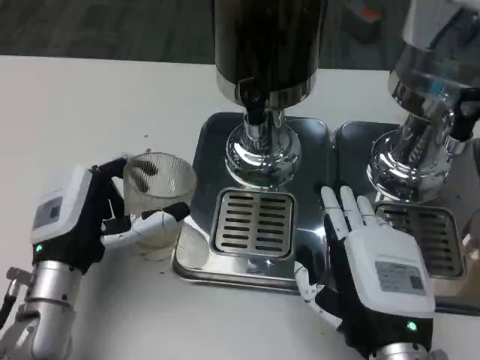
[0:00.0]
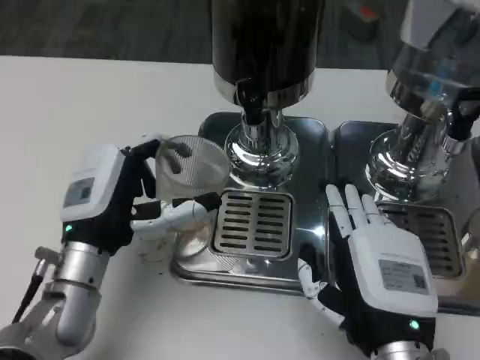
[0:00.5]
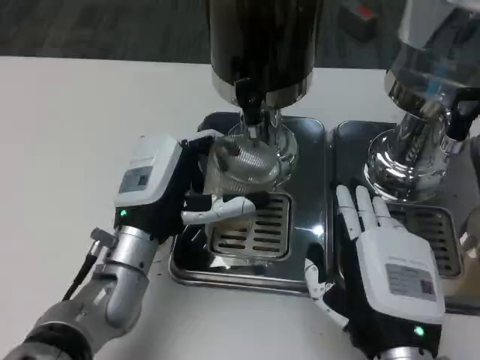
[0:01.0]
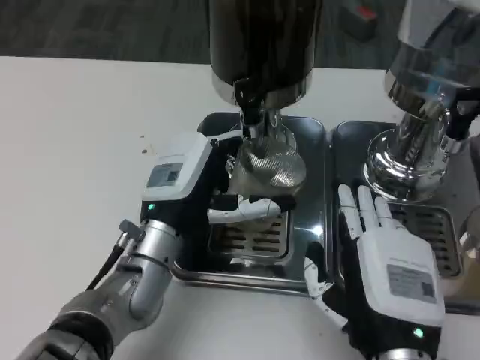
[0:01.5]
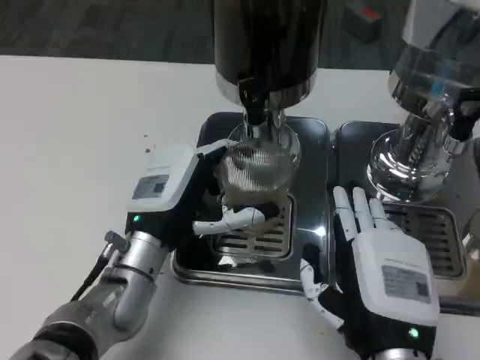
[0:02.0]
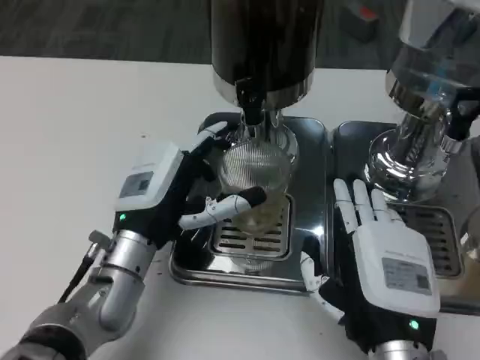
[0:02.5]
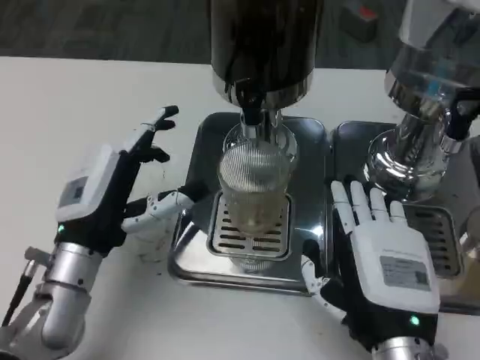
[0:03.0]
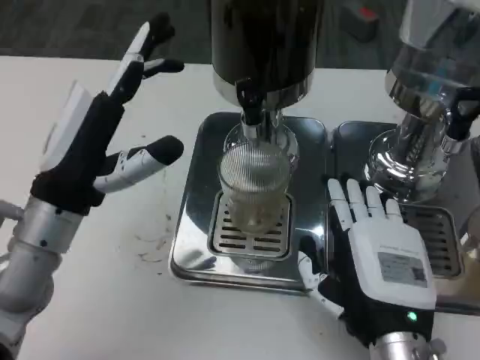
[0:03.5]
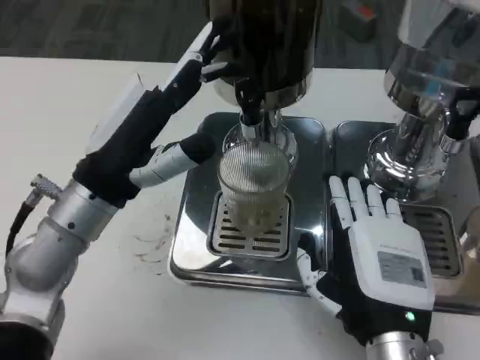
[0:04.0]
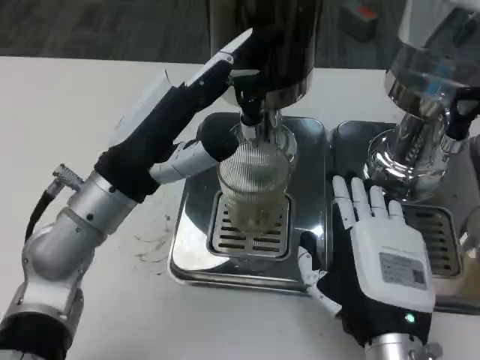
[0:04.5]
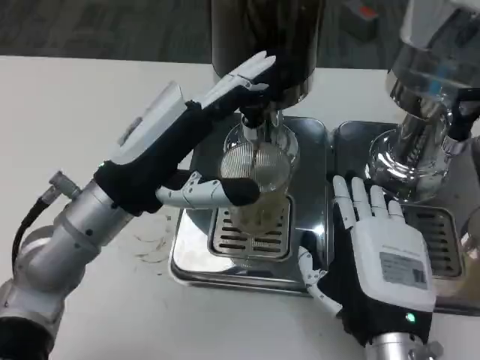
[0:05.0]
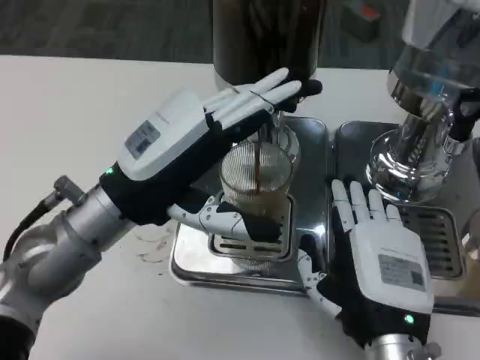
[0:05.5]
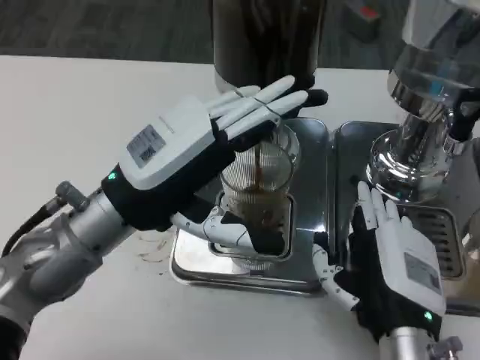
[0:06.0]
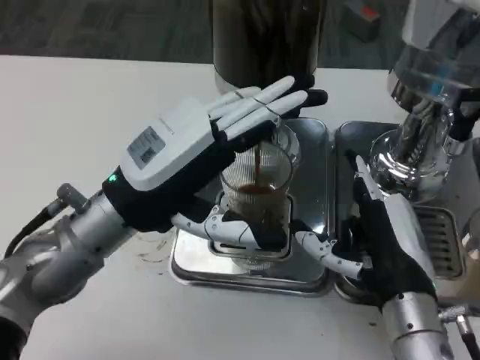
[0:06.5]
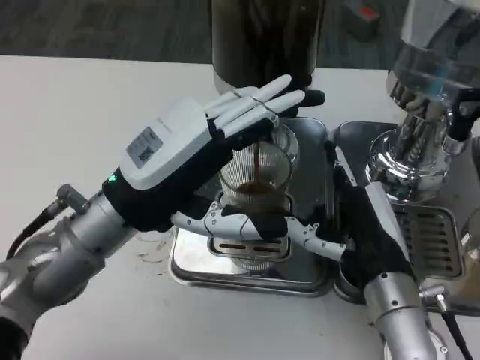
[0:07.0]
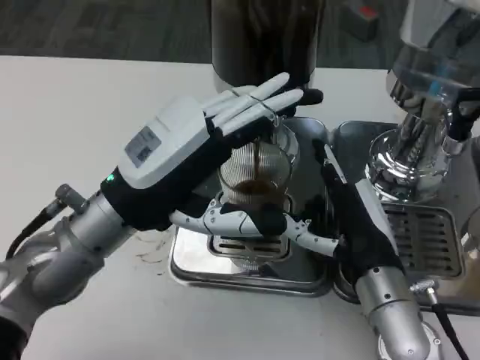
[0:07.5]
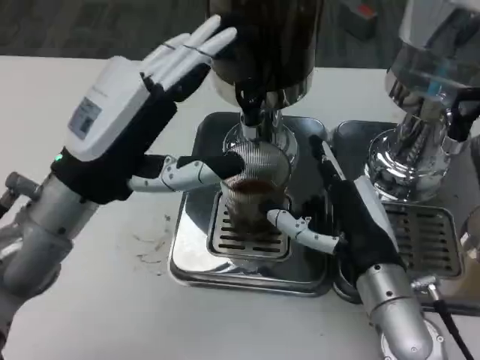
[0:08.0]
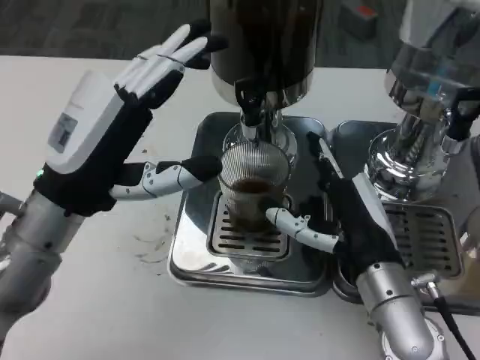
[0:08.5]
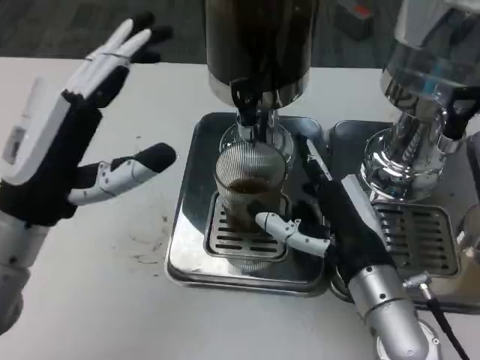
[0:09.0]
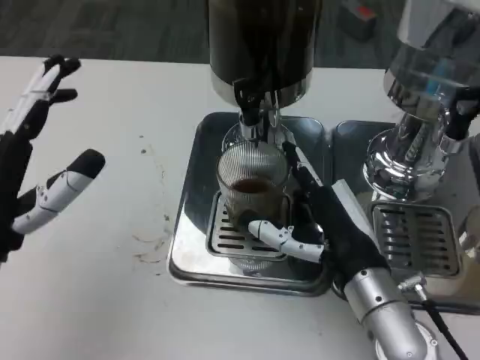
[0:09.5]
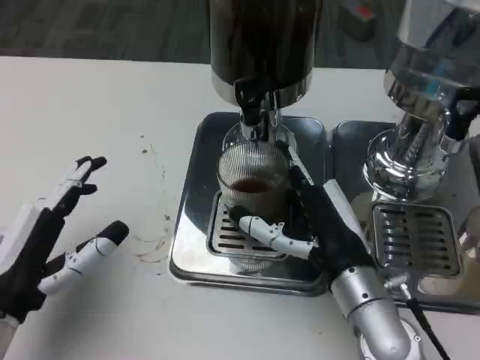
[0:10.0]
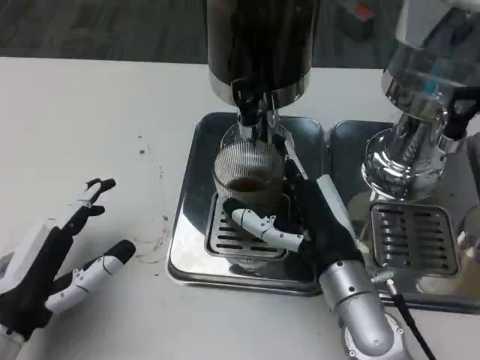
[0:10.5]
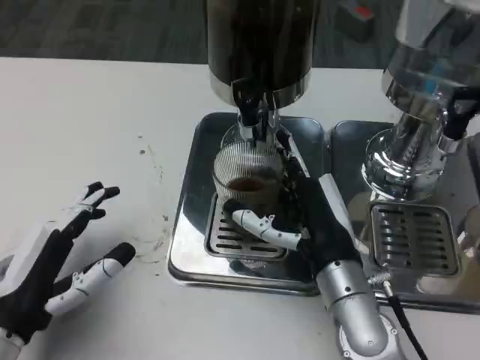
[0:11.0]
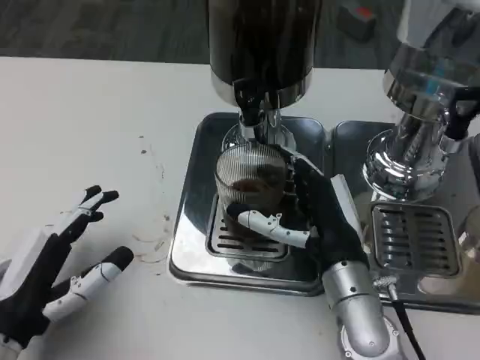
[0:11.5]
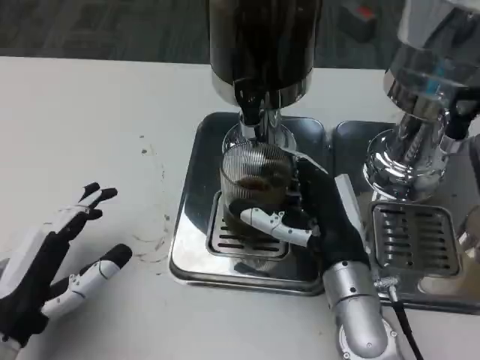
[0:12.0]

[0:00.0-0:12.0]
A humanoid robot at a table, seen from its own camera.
Task of the whole recording: Grasp the cup under the faucet to collect the drink, then remove the cup.
0:00.0 to 0:02.0: The left hand shifts some 5 cm to the right.
0:02.0 to 0:04.0: The left hand heads upward, covering about 10 cm.
0:06.0 to 0:08.0: The right hand is displaced forward by roughly 5 cm.
0:08.0 to 0:10.0: The left hand moves downward, backward and to the left, approximately 15 cm.
0:10.0 to 0:12.0: The hands make only small movements.

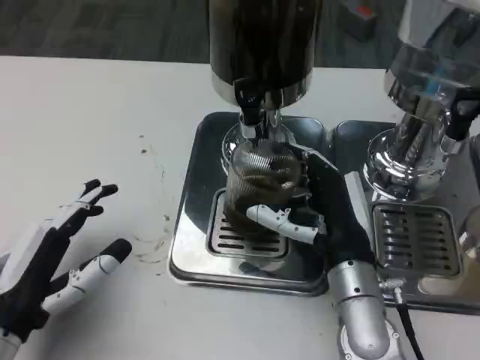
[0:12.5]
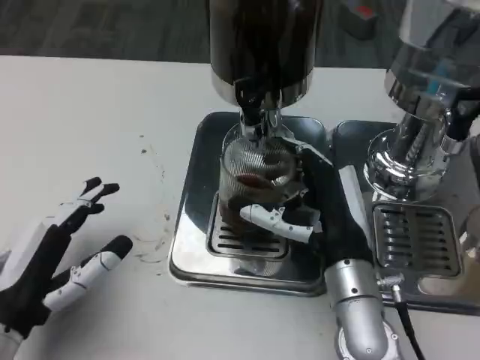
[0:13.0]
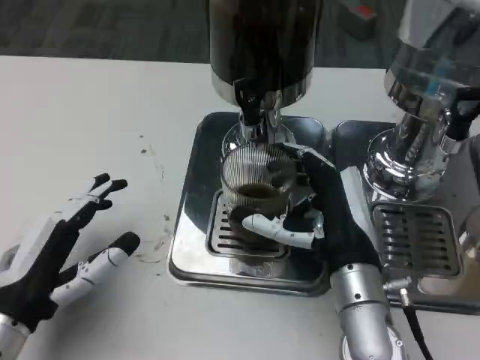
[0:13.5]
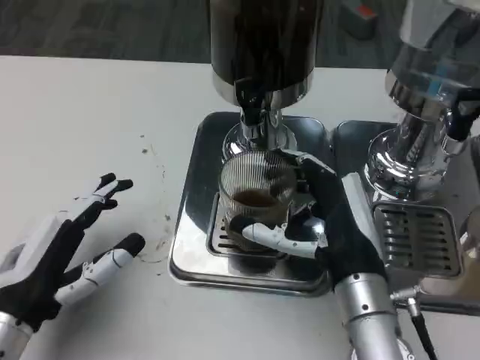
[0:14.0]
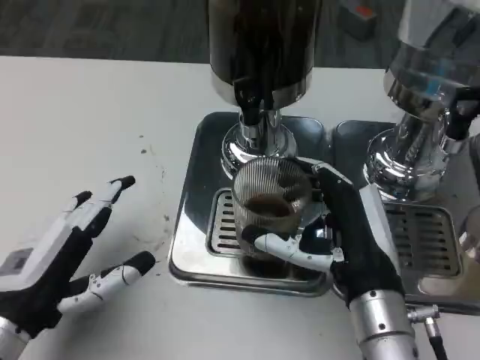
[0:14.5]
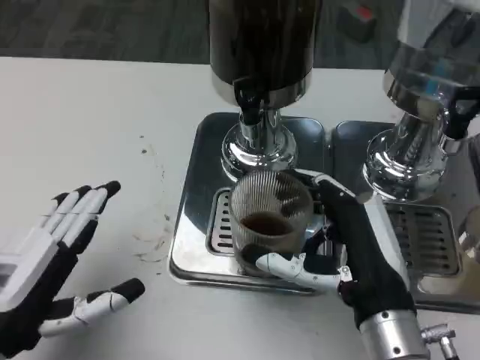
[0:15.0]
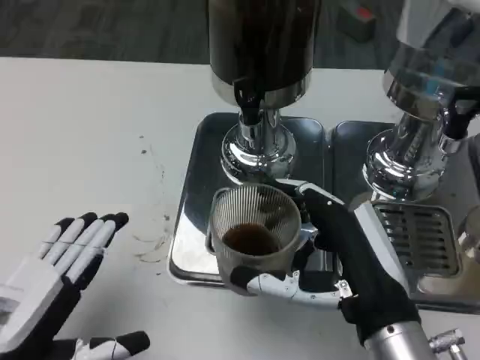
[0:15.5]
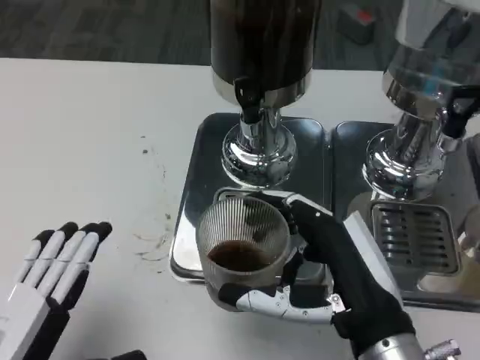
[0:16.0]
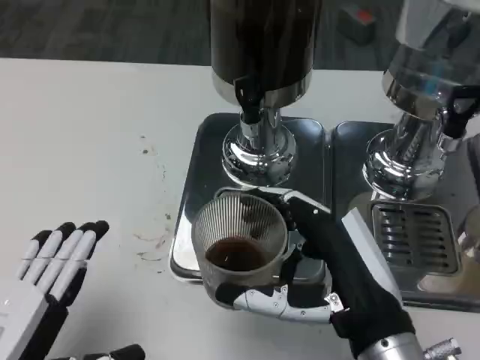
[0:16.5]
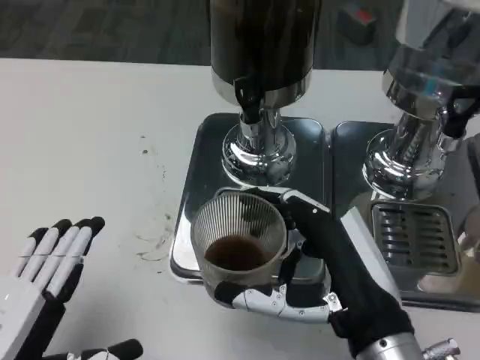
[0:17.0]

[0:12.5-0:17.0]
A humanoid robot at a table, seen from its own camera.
Task of the whole recording: Grasp the cup under the faucet to collect the drink, then remove the cup.
0:12.5 to 0:14.5: The right hand ends up some 5 cm from where it was.
0:14.5 to 0:17.0: The right hand ends up some 5 cm from where it was, while the left hand moves backward, about 10 cm.
